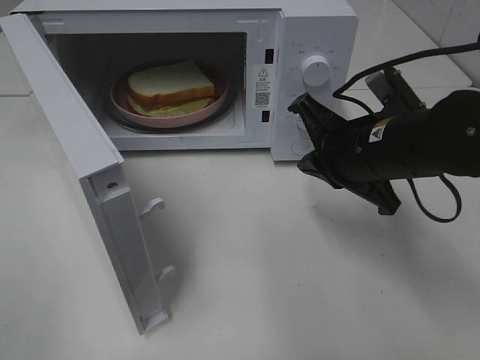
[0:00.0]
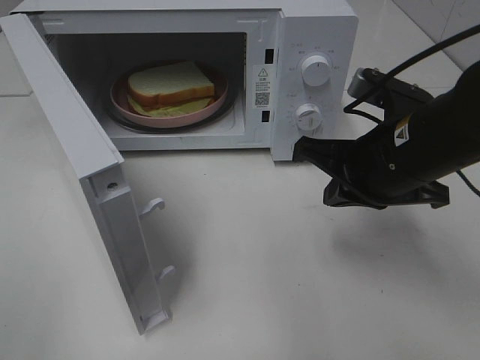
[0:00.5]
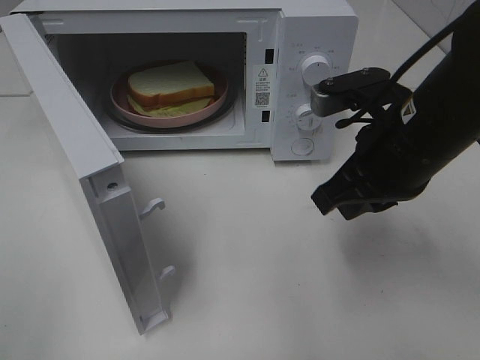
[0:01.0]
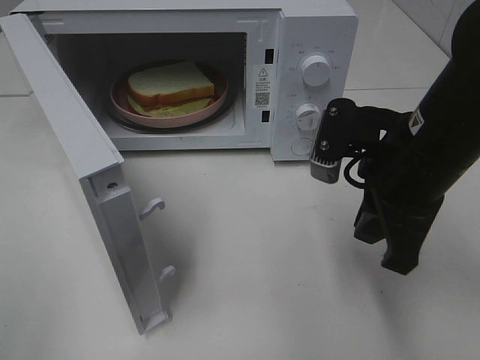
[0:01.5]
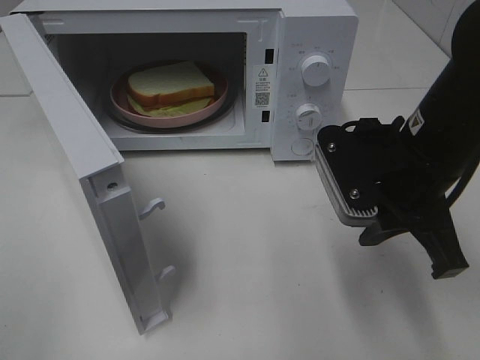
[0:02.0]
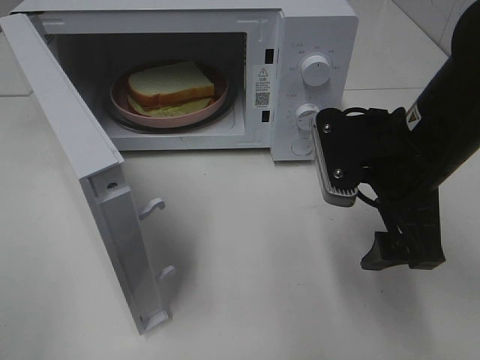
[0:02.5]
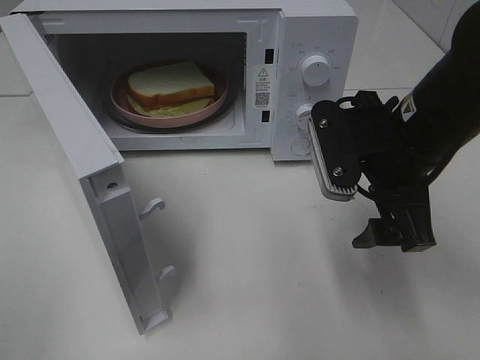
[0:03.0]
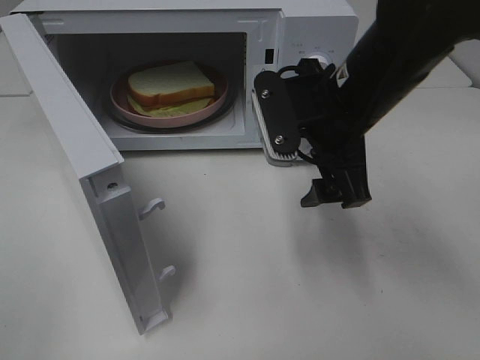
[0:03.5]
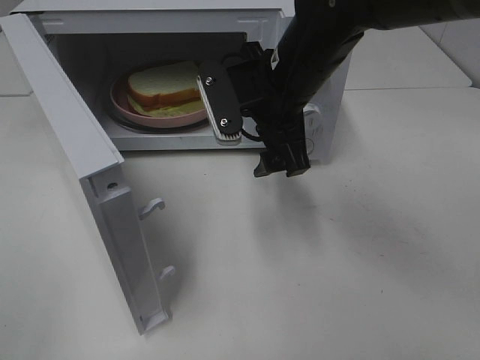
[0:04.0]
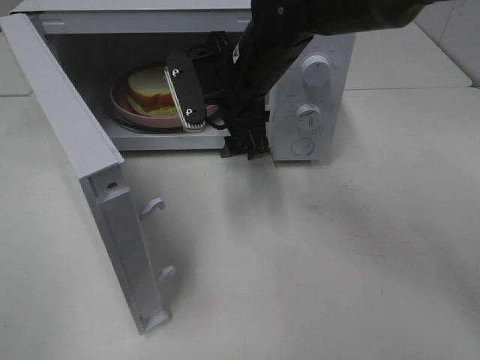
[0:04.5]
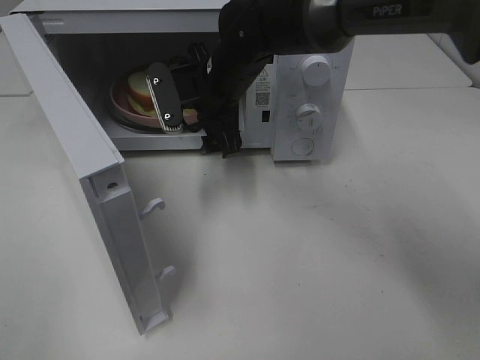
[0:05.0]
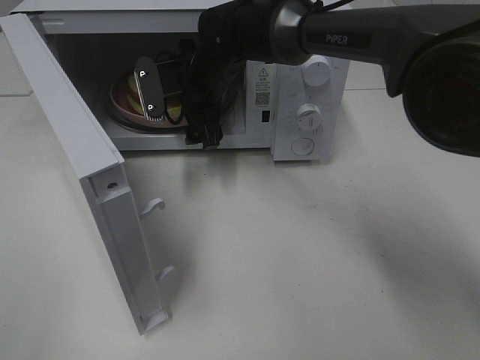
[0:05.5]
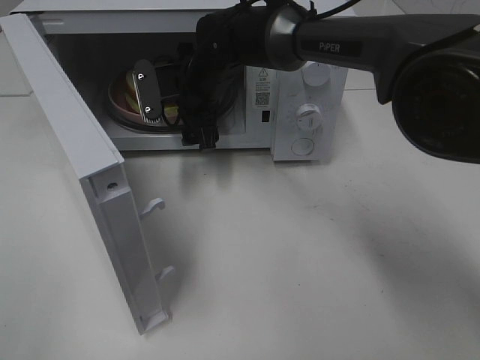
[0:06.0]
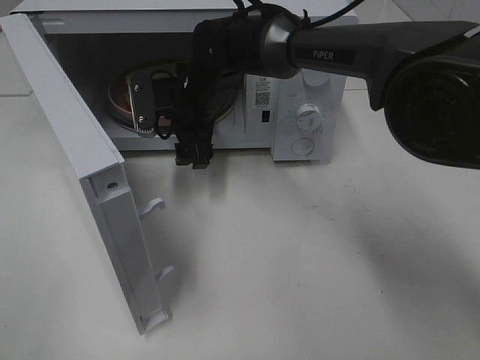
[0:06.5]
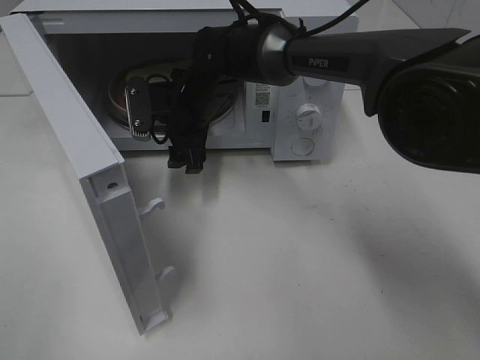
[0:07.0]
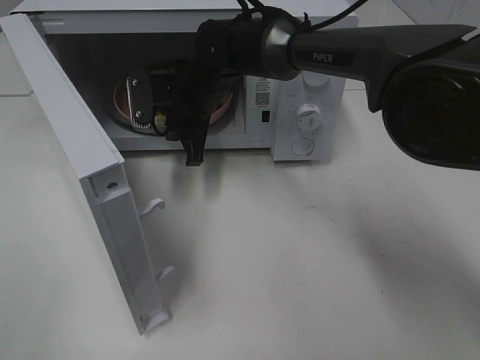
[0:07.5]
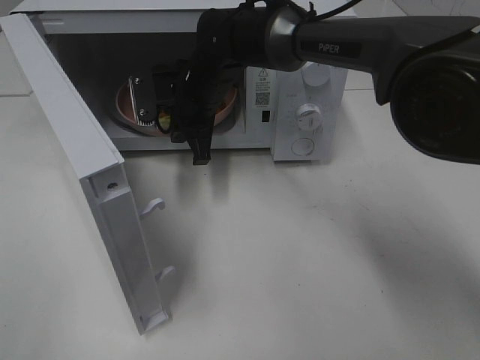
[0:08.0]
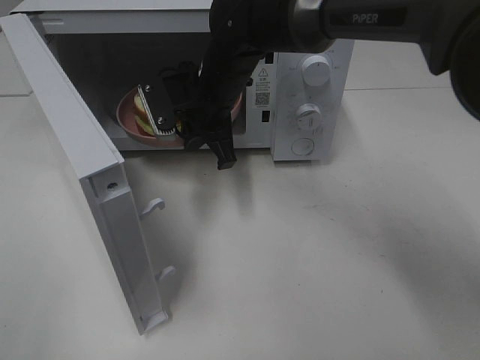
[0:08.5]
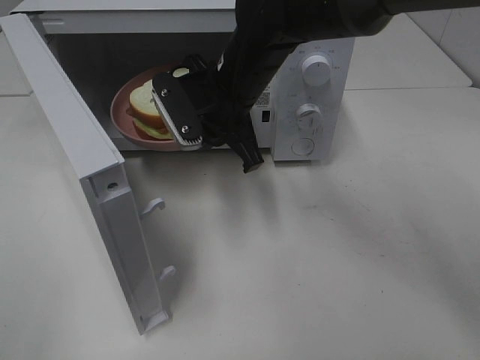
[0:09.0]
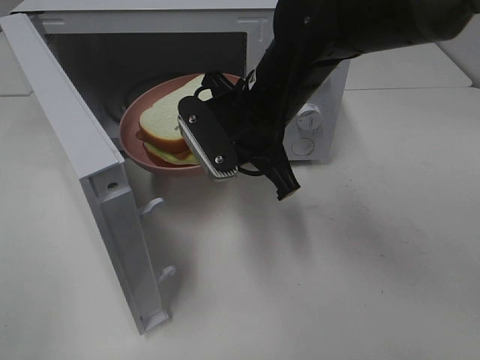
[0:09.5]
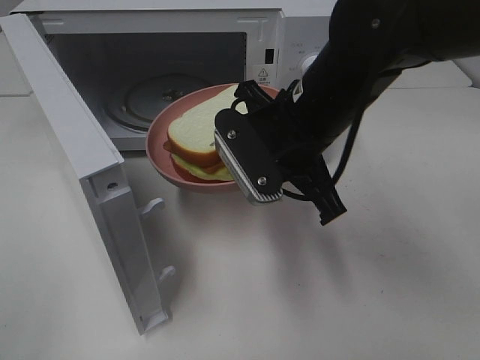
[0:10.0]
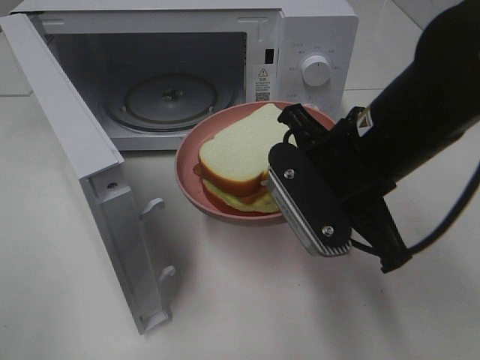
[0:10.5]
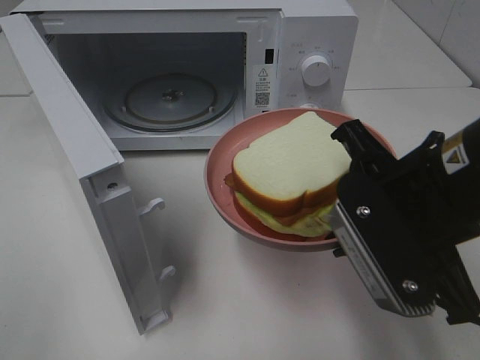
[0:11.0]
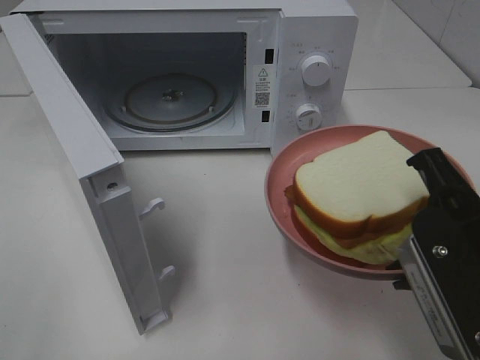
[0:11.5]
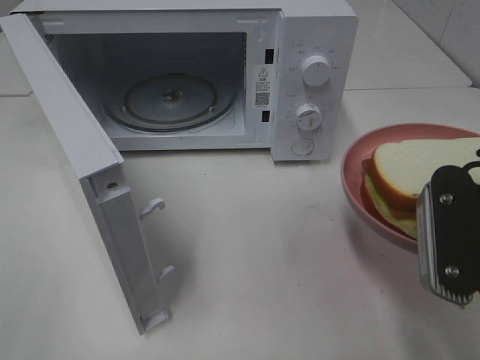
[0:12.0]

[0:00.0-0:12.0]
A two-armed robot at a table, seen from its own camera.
Task of the whole recording: Heat Sandwich.
Step, 0:00.0 to 0:07.0: Right hand: grab the plate with the sandwich.
0:00.0 to 0:02.0: The right gripper shifts by about 5 cm.
0:02.0 to 0:04.0: The right gripper travels to the left and forward by approximately 15 cm, and opens.
0:04.0 to 0:06.0: The right gripper moves forward, to the left and downward, some 15 cm.
0:06.0 to 0:08.0: The right gripper closes.
0:08.0 to 0:10.0: The right gripper travels backward and to the right by approximately 20 cm.
0:10.0 to 0:12.0: The right gripper shifts about 20 cm backward and to the right.

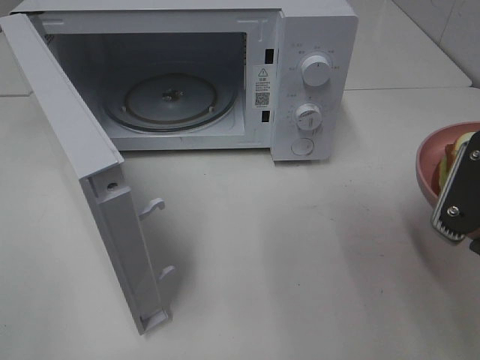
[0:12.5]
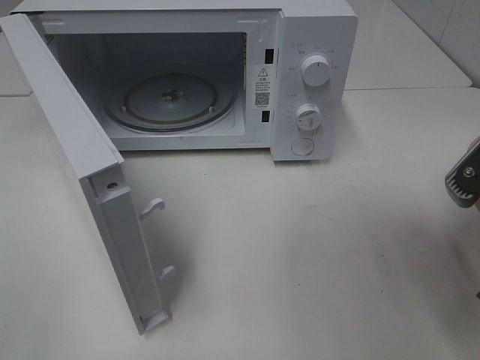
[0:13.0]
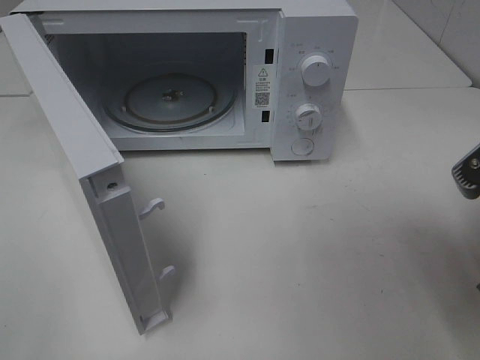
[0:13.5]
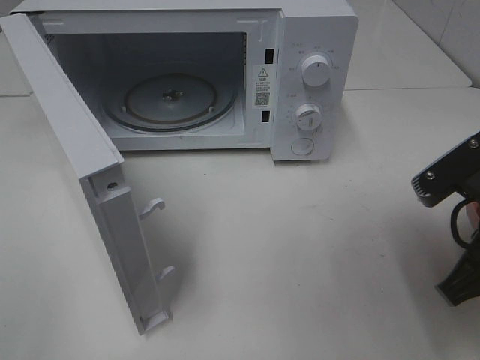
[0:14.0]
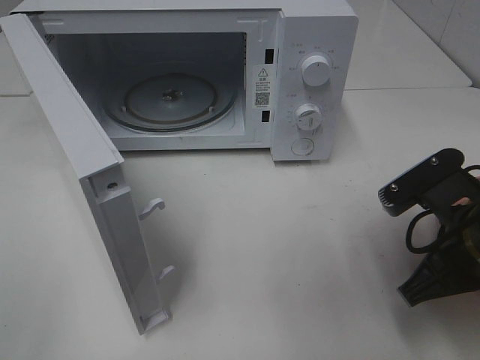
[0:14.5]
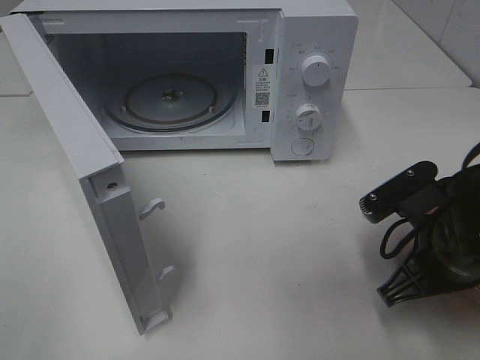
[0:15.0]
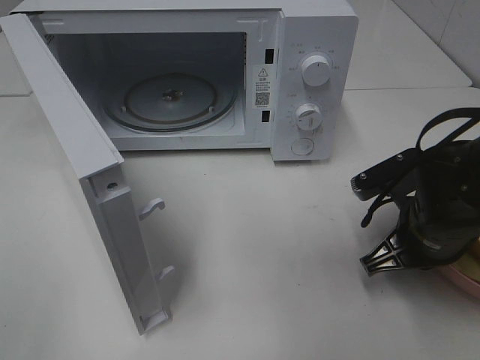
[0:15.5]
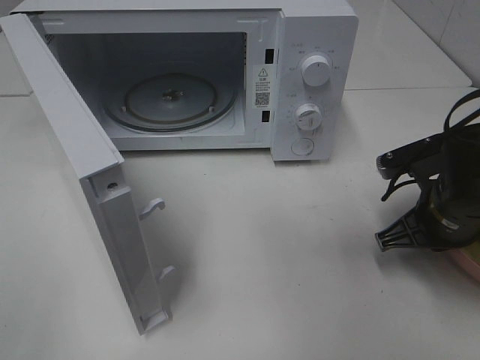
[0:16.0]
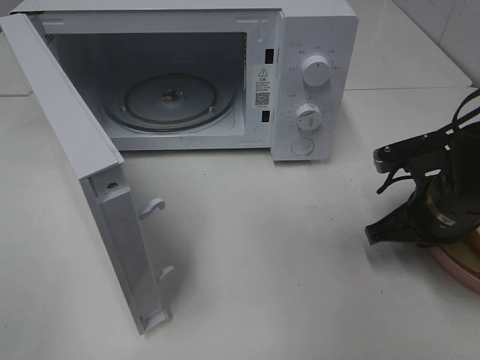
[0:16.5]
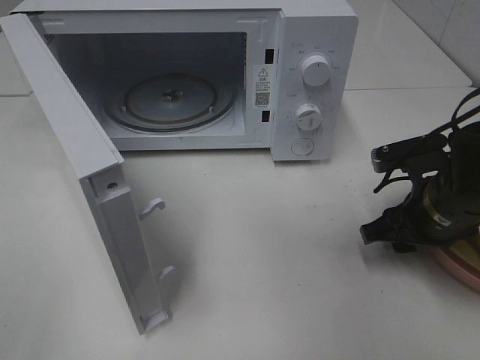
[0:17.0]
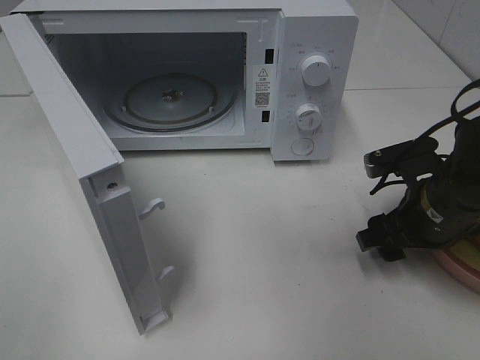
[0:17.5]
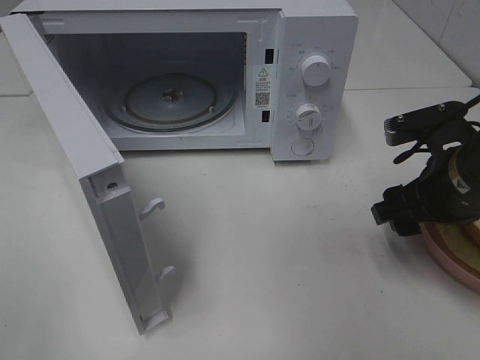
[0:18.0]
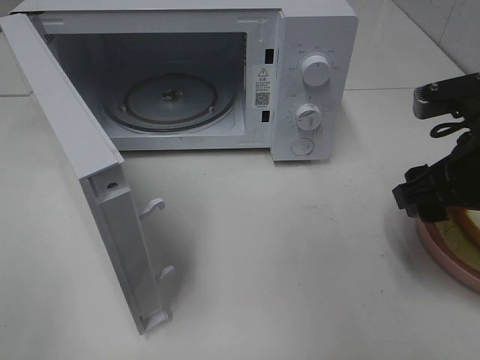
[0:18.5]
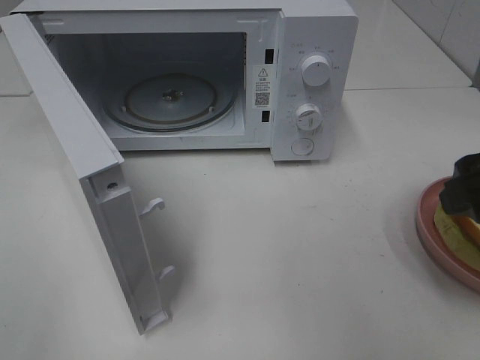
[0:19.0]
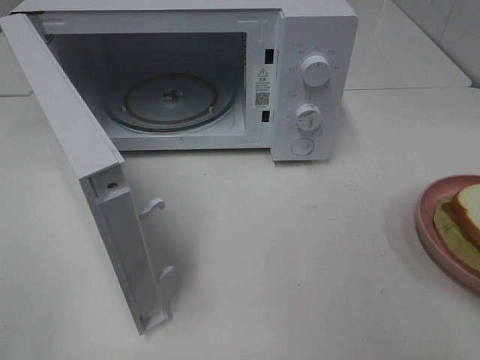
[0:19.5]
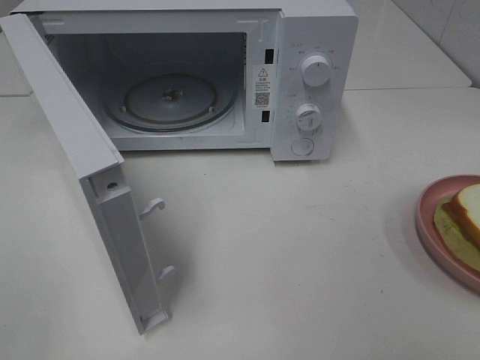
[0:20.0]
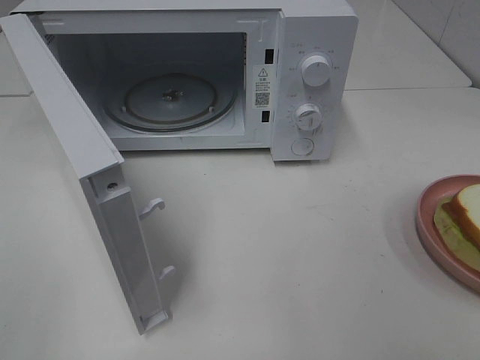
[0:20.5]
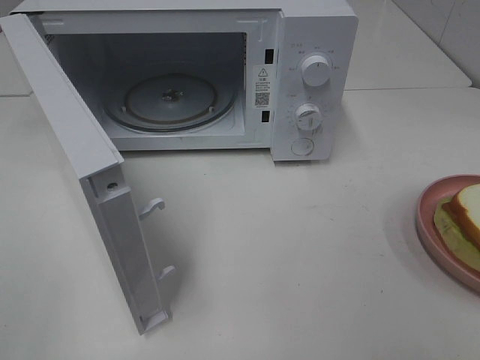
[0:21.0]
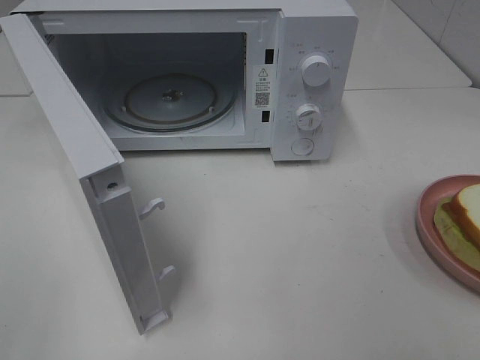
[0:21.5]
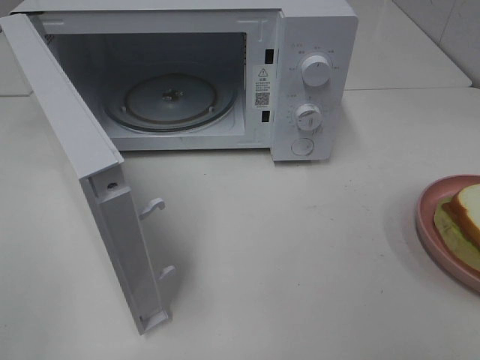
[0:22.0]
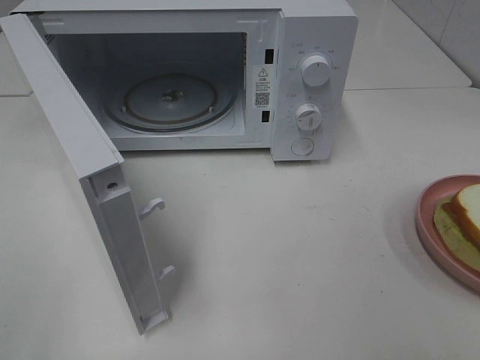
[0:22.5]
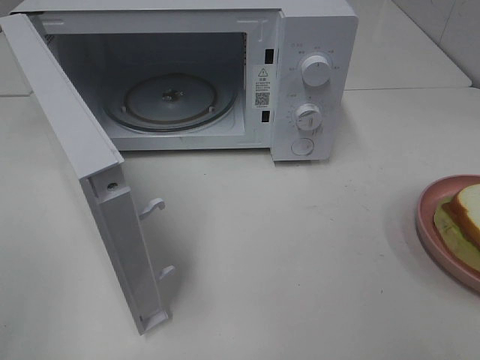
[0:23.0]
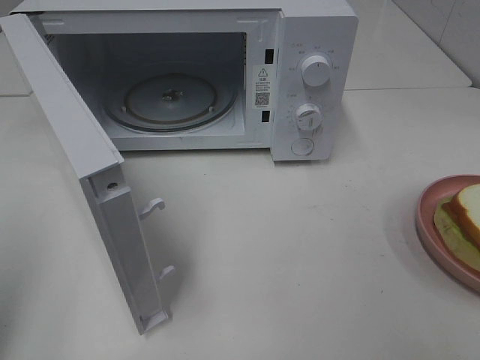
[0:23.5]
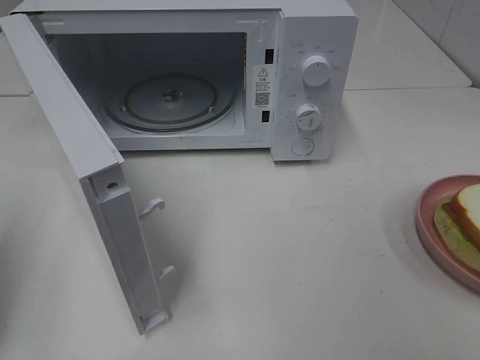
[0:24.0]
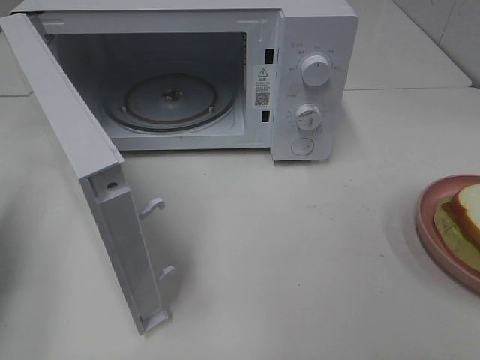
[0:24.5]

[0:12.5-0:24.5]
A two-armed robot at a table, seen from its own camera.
Task of the whole recording: Heat Sandwich.
Step, 0:12.5 to 0:18.5: Right hand: place the plate on the table.
0:12.5 to 0:14.5: The right gripper shifts about 5 cm downward.
0:14.5 to 0:16.5: The right gripper shifts roughly 5 cm forward.
0:16.5 to 0:18.5: The right gripper travels upward by approximately 10 cm, and opens its fingers.
0:18.5 to 0:20.5: The right gripper travels backward by approximately 20 cm.
0:22.5 to 0:24.5: The left gripper moves forward, some 20 cm, and closes up.

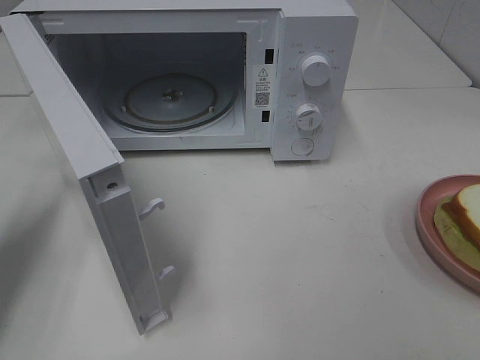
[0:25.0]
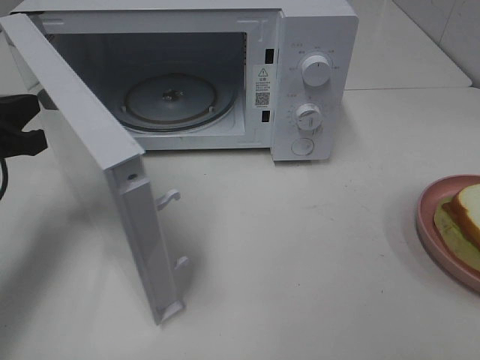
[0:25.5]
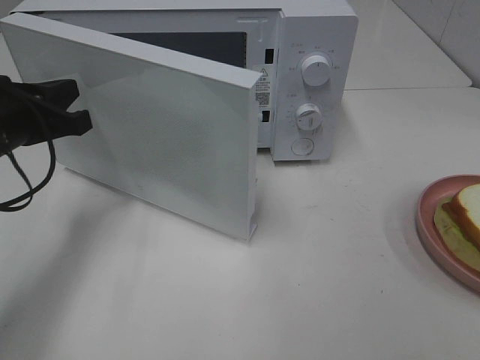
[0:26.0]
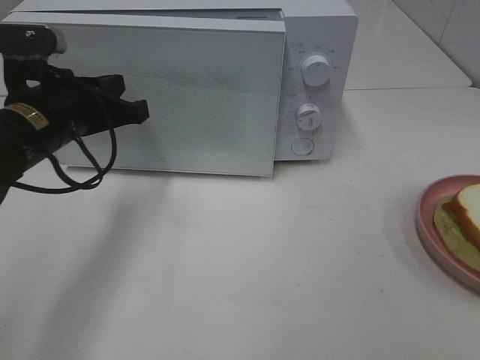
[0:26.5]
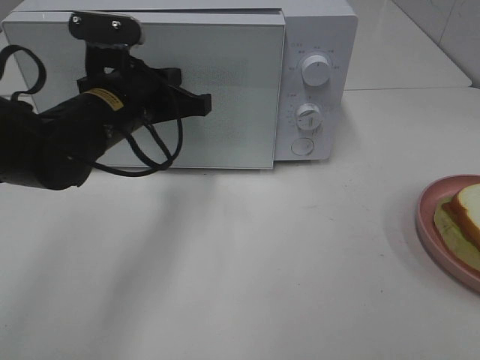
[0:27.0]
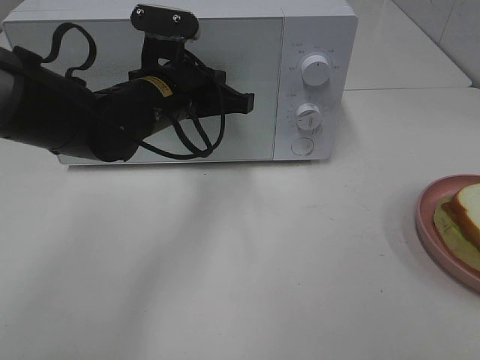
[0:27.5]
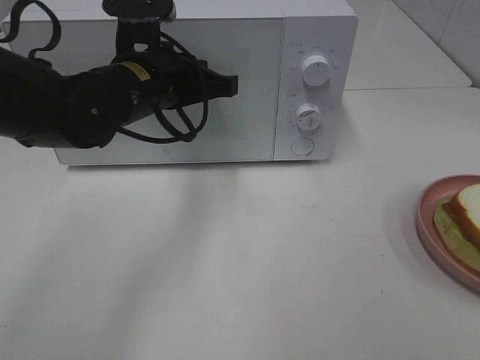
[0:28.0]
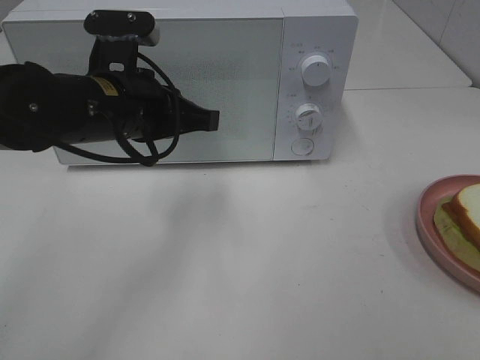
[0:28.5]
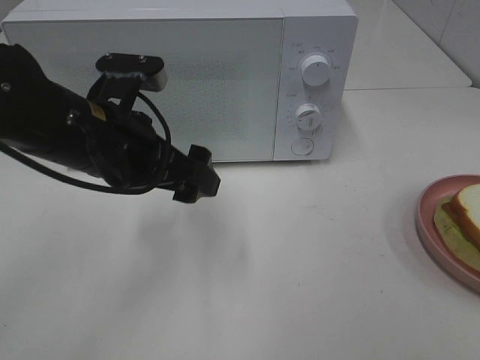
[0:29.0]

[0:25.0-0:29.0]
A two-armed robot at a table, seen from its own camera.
Task of the whole recording: Heat Sandwich.
Step, 0:25.0 to 0:28.0: Left hand: close the microwave door.
0:25.0 to 0:27.0: The left gripper shifts approximately 20 cm to the right and forward.
0:27.0 to 0:29.0: The left gripper goes some 5 cm backward, and opens its fingers.
